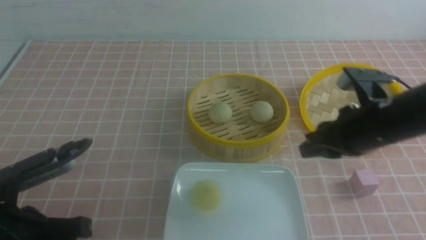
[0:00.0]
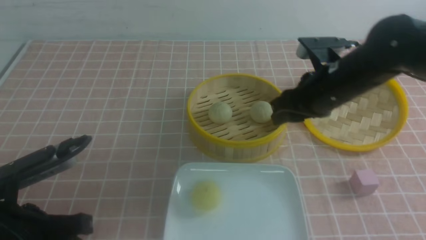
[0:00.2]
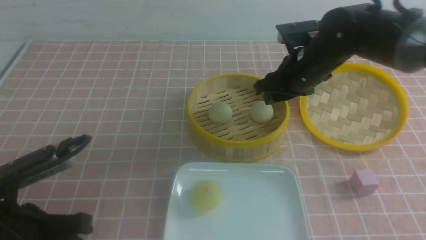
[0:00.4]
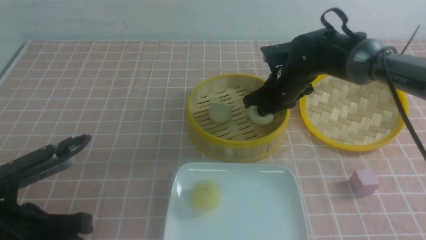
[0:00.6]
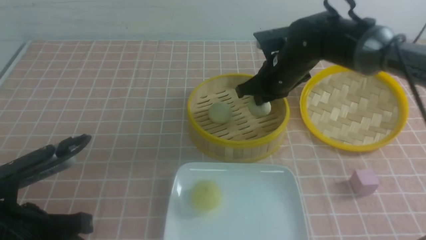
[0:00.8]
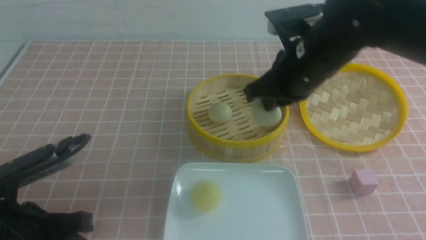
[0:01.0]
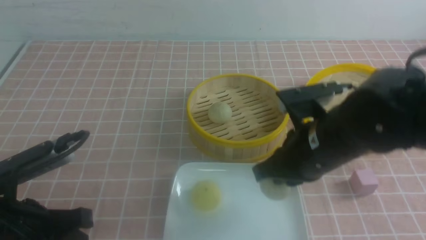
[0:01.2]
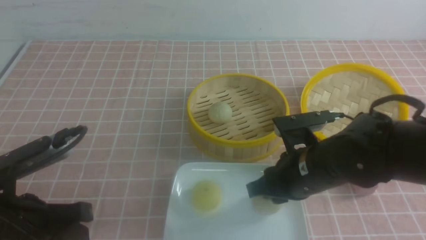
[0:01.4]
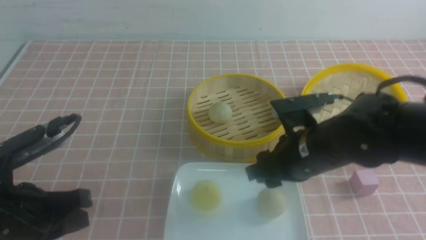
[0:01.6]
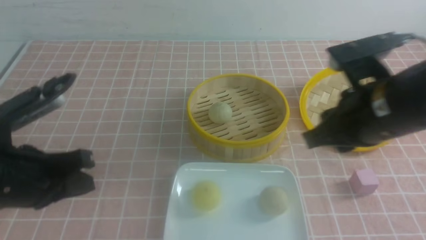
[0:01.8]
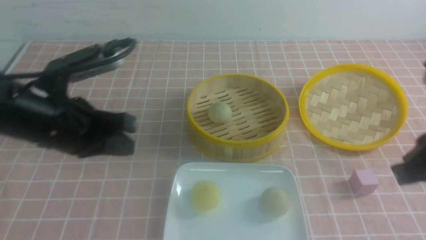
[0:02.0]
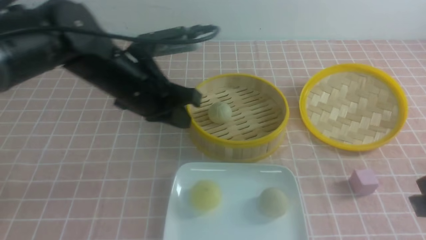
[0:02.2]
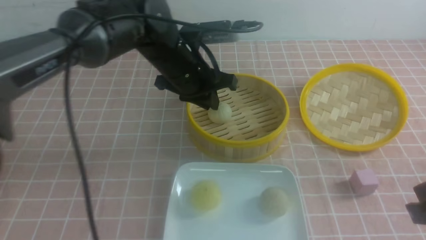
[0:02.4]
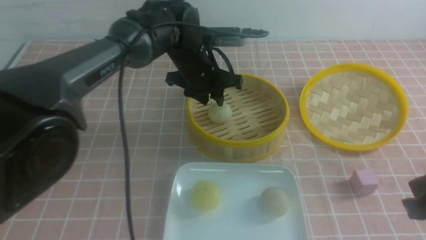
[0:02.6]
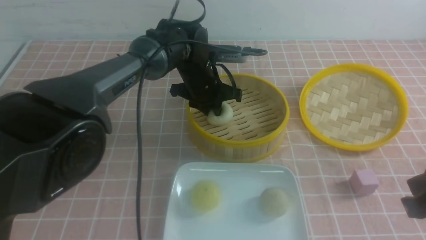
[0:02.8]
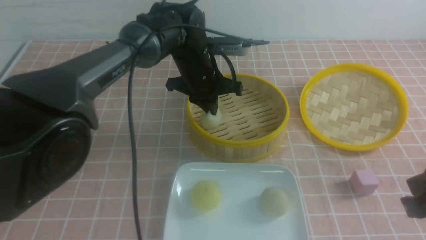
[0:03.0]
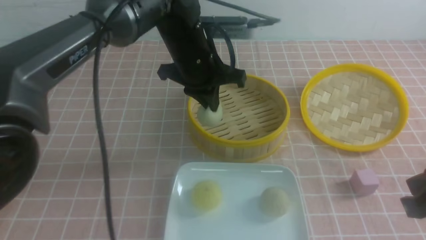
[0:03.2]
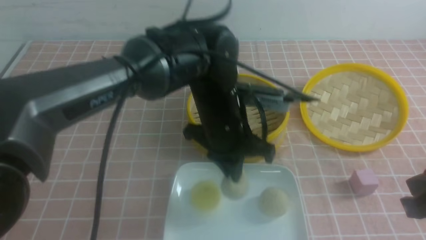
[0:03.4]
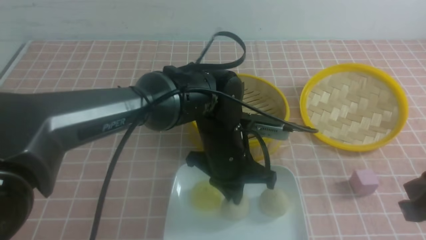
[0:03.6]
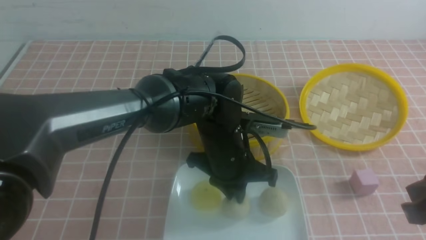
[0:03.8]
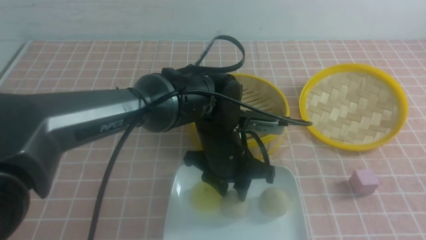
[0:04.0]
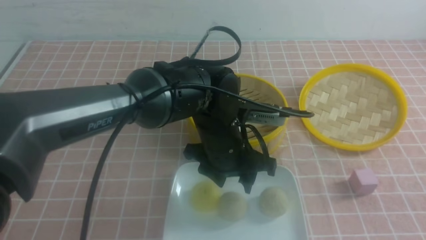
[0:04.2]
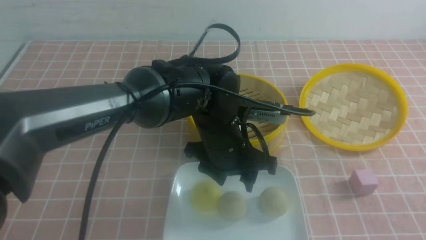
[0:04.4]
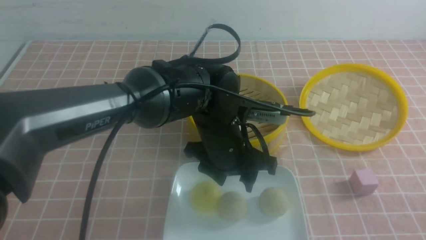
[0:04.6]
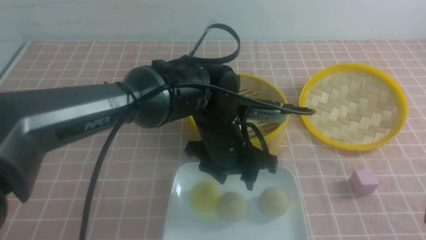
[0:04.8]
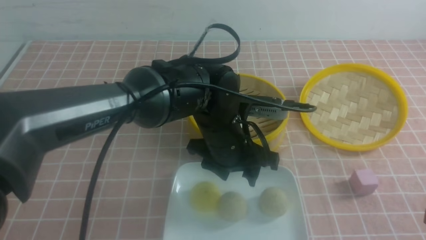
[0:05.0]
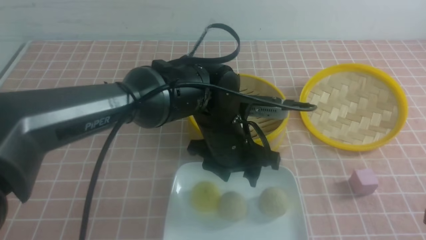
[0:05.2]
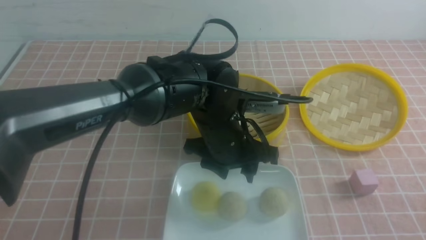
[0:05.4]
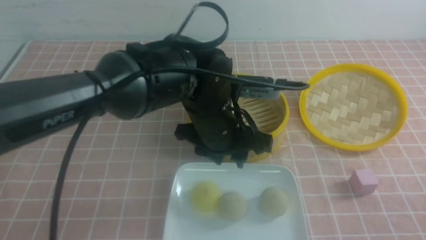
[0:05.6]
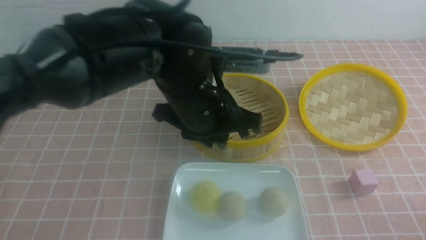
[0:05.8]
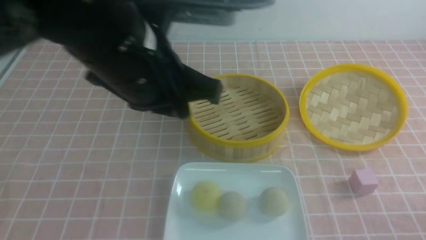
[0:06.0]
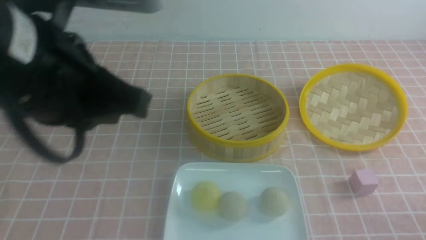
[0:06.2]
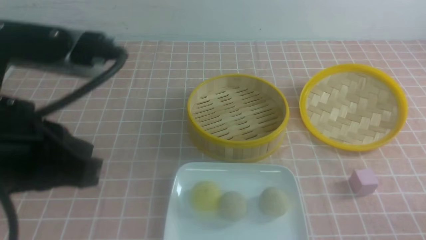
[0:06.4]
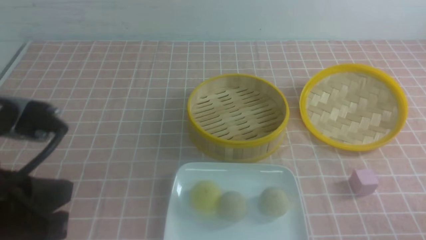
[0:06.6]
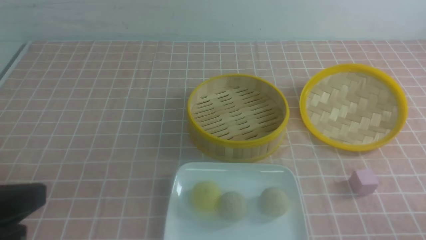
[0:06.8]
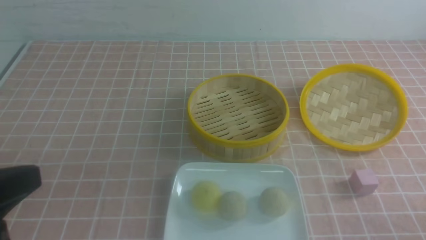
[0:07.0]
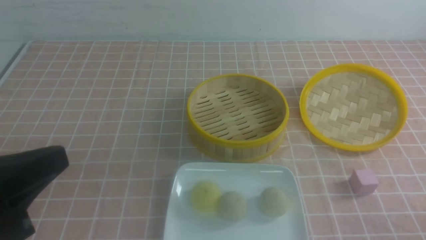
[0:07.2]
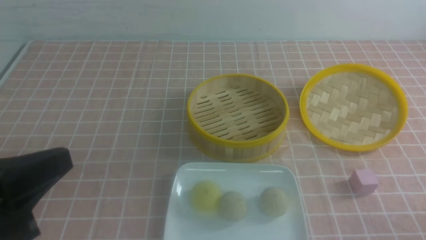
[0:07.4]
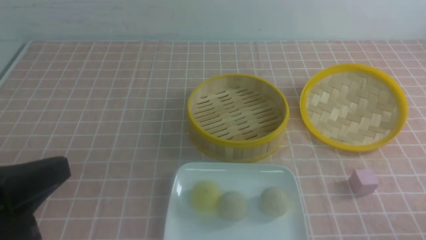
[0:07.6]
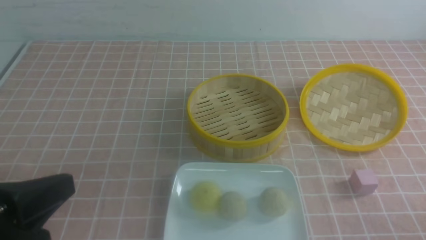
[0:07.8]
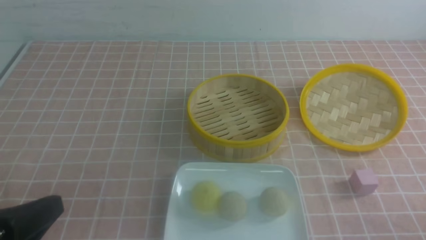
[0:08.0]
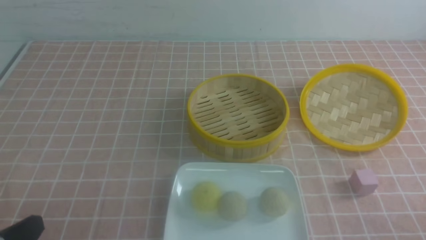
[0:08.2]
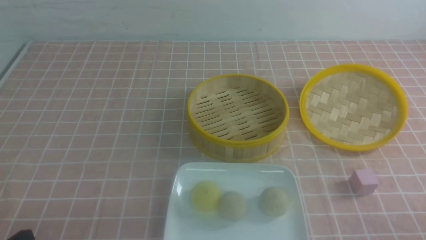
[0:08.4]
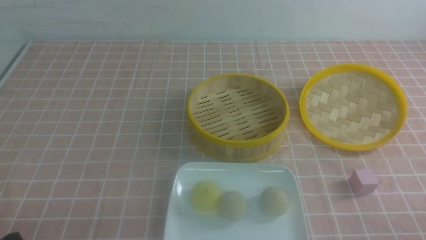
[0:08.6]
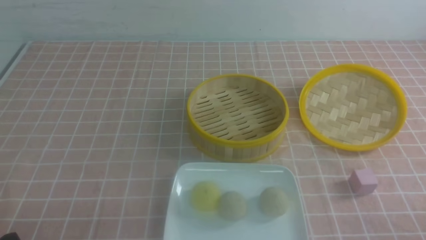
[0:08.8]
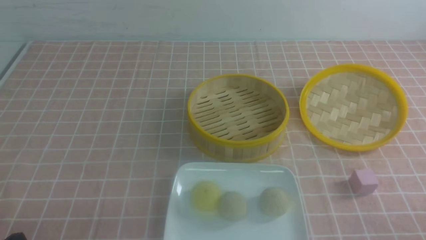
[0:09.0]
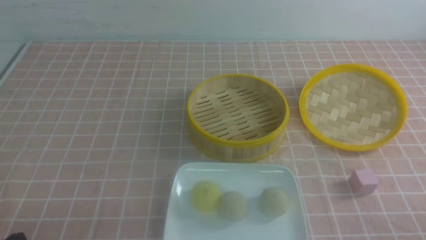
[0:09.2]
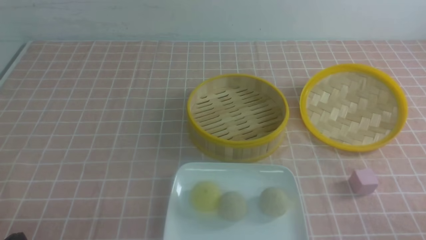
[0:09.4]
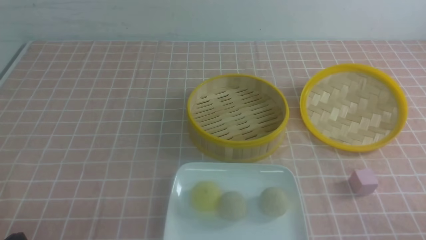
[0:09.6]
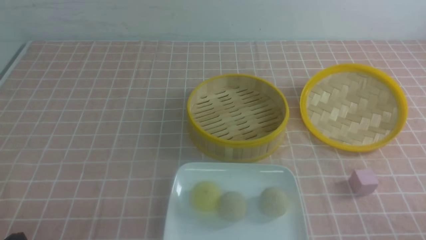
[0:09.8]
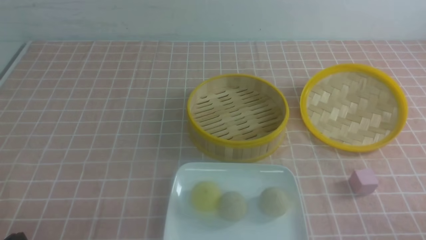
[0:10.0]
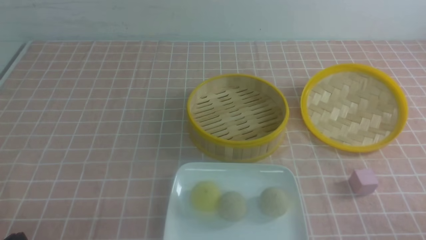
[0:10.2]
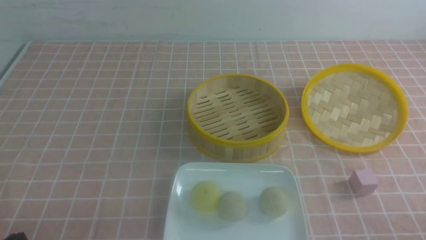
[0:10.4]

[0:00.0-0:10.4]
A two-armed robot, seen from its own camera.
Step, 0.8 to 1.4 s: use the right arm to put the steamed stuffed bun into the plate.
Step, 1.6 to 2.8 s: use the left arm to grab the steamed stuffed bun that is closest to it.
Step, 3.0 to 3.8 s: use the left arm to put the steamed stuffed bun into the plate.
0.0 to 1.4 s: The right gripper is displaced to the left and downward by approximately 10 cm, reaches about 15 cm forward, then returns, and closes, then opens again.
1.4 to 3.0 s: The left gripper travels forward and to the right by about 35 cm; the right gripper moves to the right, backward and upward, approximately 20 cm, and closes.
3.0 to 4.4 s: The right gripper travels backward and to the right by approximately 10 cm. The left gripper is displaced backward by approximately 15 cm, and opens.
4.4 to 6.0 s: The left gripper shifts some 20 cm upward, to the left and backward, and closes up. Meanwhile the right gripper travels downward by some 15 cm.
6.0 to 7.4 s: The left gripper moves backward and to the left, about 20 cm.
7.4 to 9.0 s: The left gripper travels downward by approximately 15 cm.
9.0 to 10.4 s: Both grippers stay about where they are.

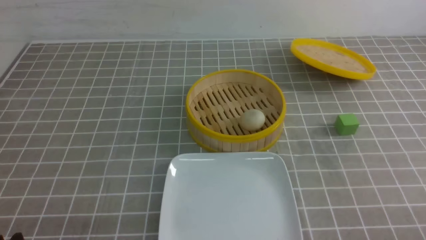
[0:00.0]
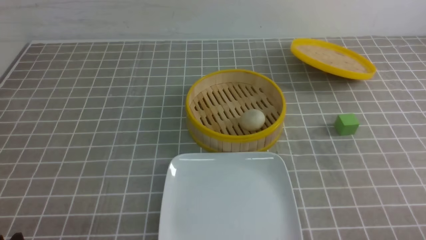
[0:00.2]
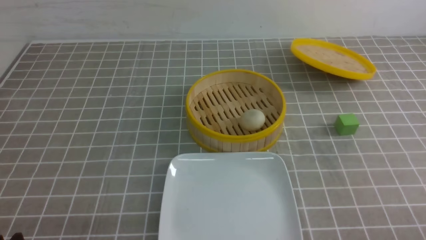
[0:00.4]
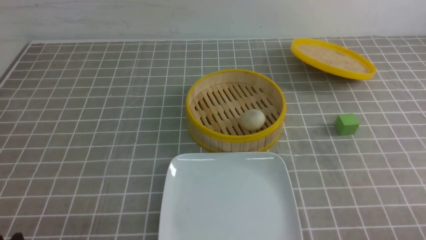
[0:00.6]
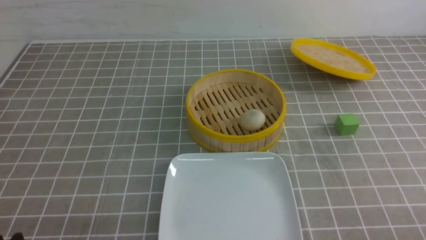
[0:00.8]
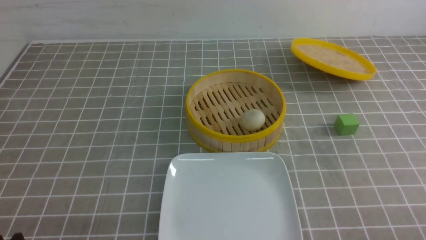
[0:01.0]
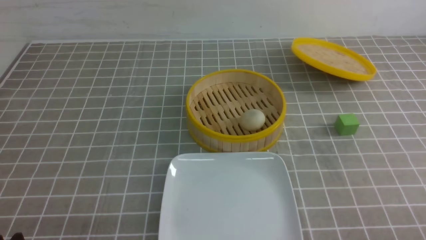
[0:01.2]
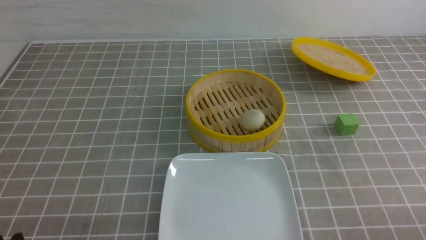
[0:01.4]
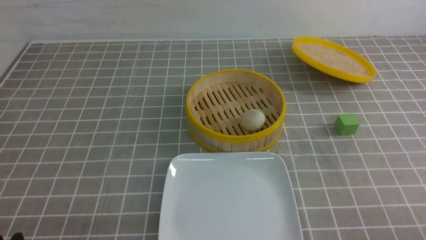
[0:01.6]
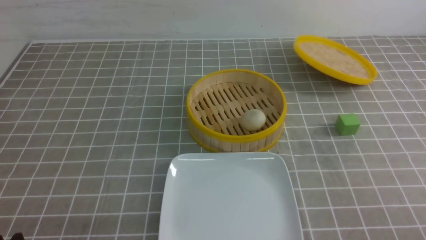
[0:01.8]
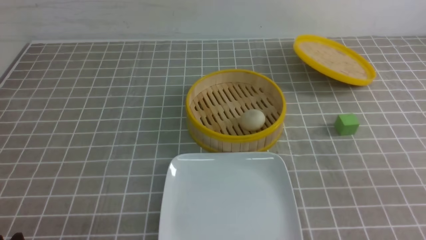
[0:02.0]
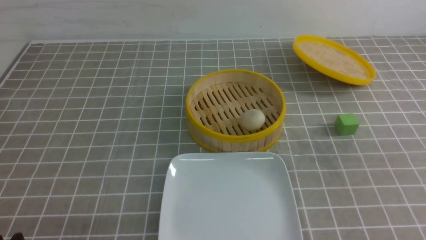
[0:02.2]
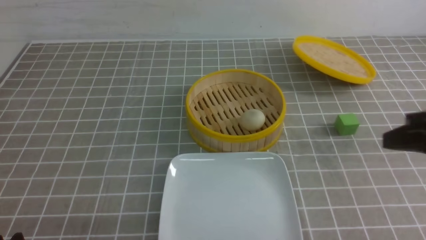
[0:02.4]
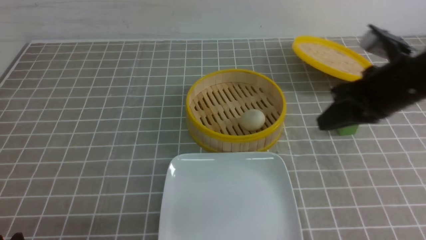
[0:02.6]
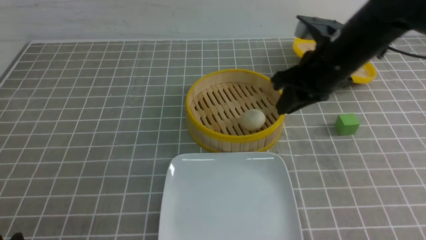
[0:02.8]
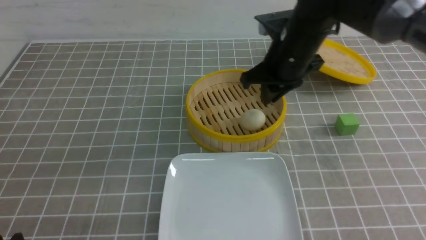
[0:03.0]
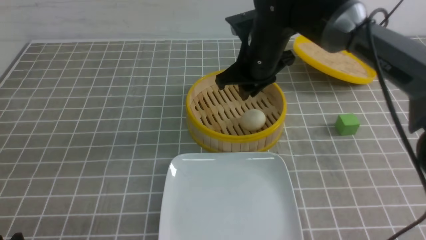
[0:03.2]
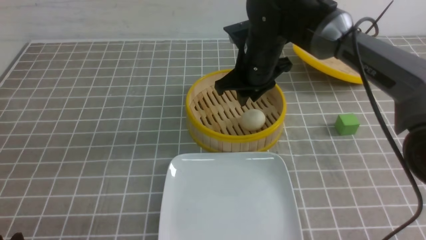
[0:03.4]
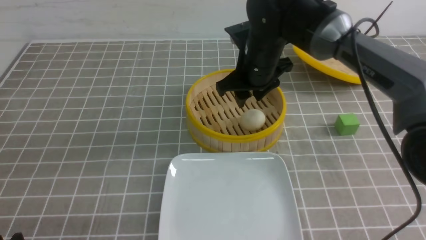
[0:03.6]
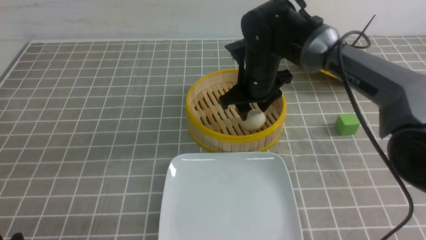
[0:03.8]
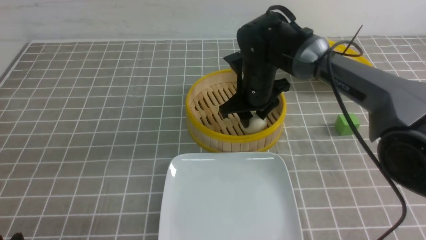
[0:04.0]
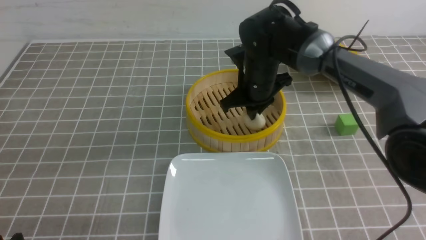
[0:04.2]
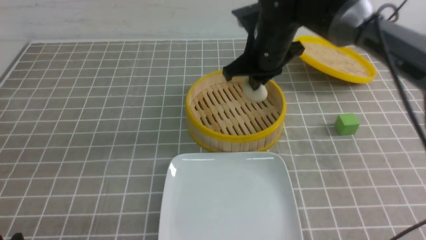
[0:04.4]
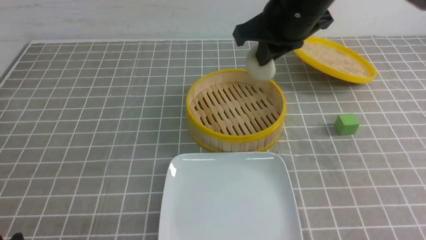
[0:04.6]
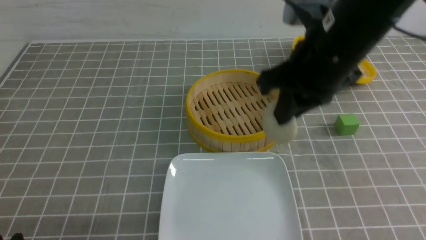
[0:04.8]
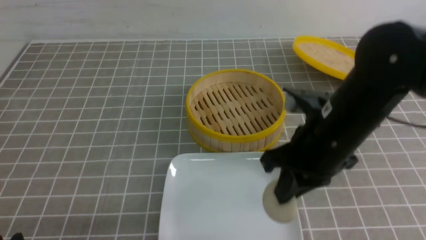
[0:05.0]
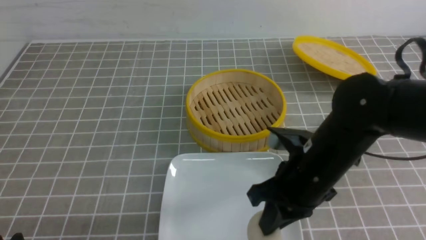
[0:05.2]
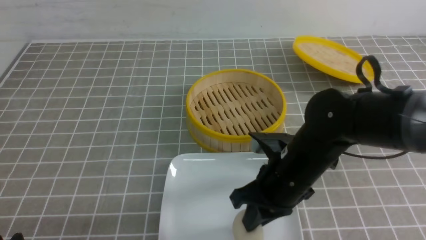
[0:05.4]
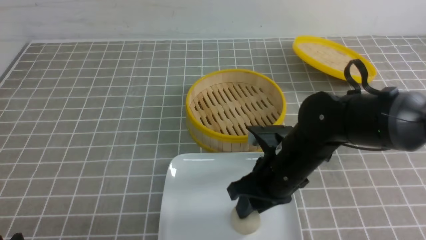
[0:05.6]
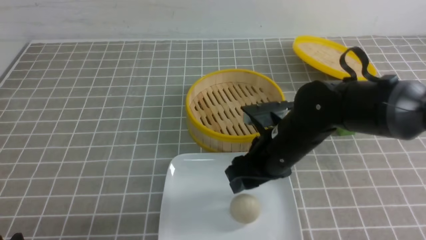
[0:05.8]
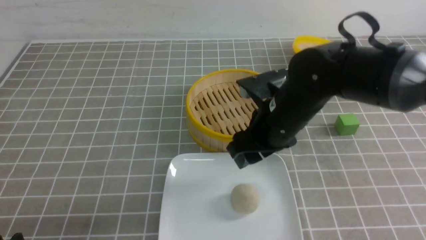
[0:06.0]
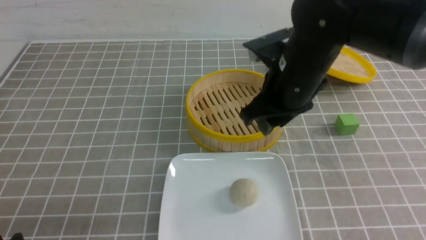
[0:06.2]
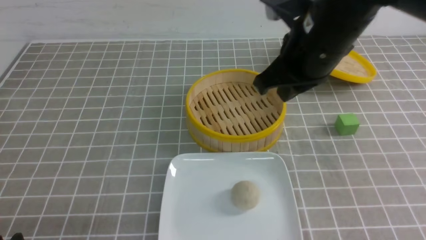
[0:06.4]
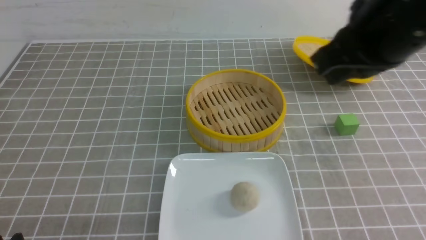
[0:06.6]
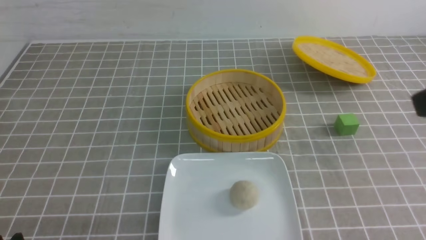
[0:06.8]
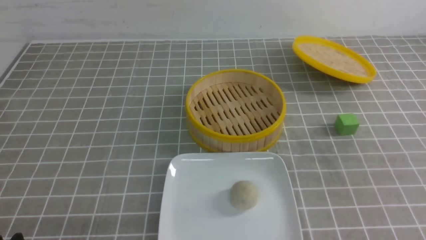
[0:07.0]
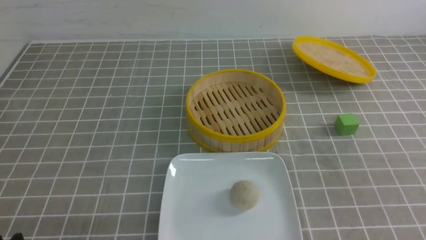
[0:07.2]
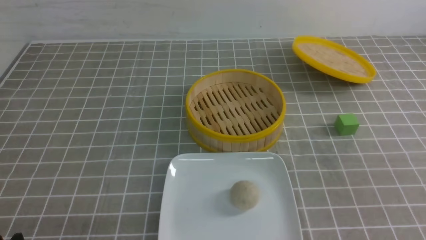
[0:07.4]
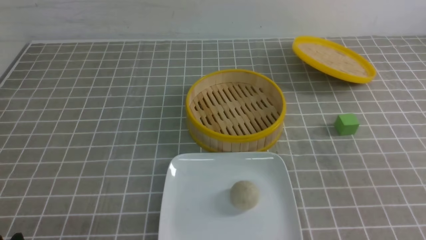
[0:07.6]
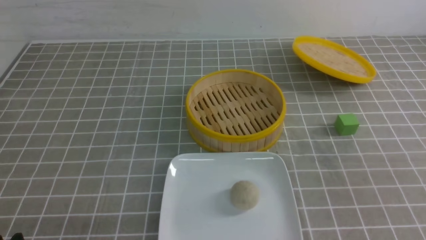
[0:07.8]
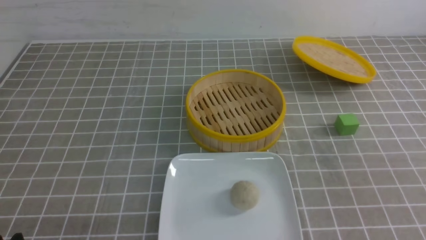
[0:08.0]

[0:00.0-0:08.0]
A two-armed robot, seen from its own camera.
Step, 0.0 to 4.2 s: use the right arm to grab the steamed stuffed bun that is closest to it.
Step, 4.4 to 5.6 s: use the right arm to put the steamed stuffed bun into the plate.
1.6 to 3.2 s: The right gripper is displaced forward and to the left by roughly 40 cm, and closes, then reopens.
3.2 to 4.8 s: The right gripper shifts roughly 15 cm backward and upward, and closes.
4.8 to 6.4 s: The right gripper moves roughly 15 cm downward and comes back, and opens and closes again.
6.4 to 8.0 s: The right gripper shifts some 30 cm backward, to the right and downward.
